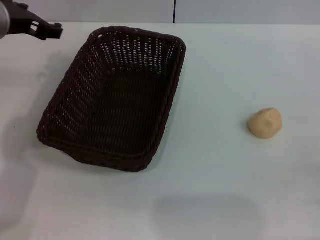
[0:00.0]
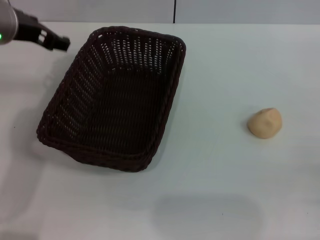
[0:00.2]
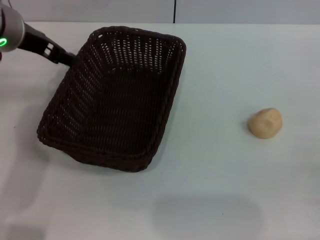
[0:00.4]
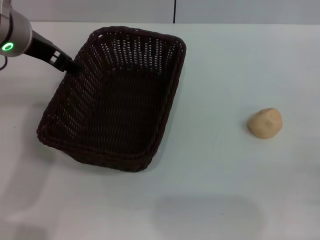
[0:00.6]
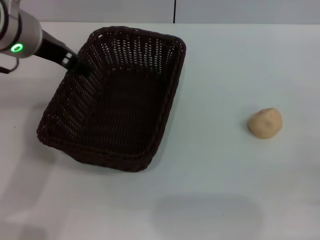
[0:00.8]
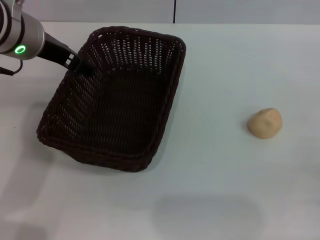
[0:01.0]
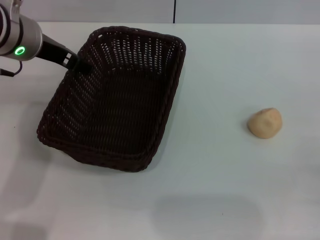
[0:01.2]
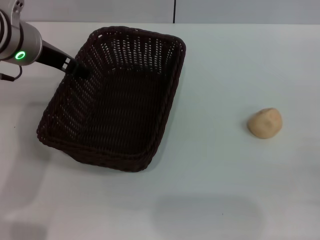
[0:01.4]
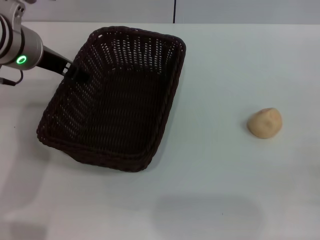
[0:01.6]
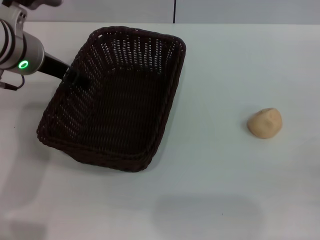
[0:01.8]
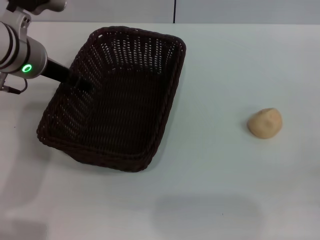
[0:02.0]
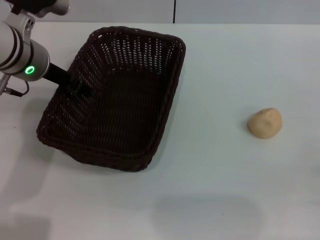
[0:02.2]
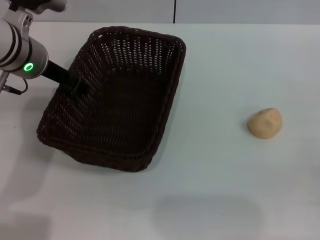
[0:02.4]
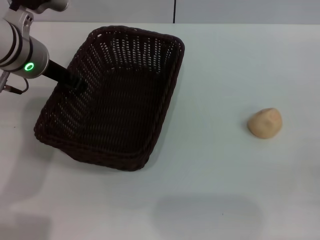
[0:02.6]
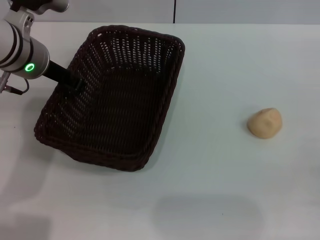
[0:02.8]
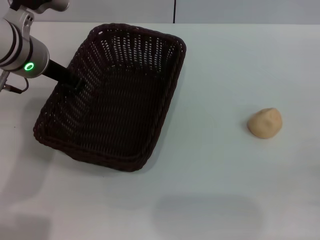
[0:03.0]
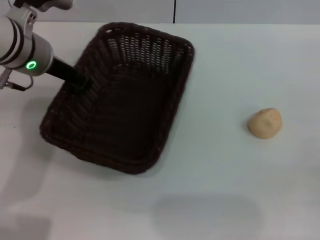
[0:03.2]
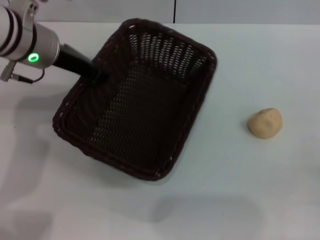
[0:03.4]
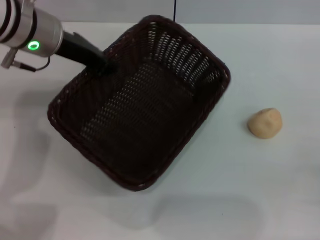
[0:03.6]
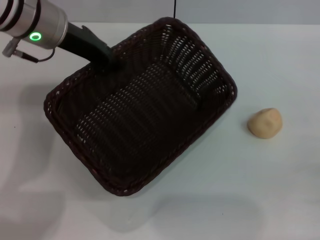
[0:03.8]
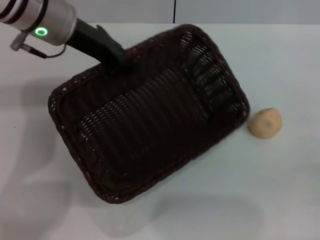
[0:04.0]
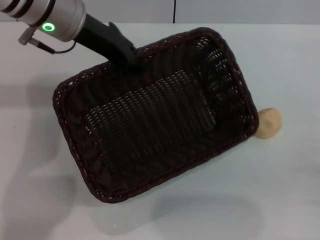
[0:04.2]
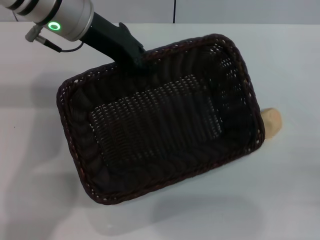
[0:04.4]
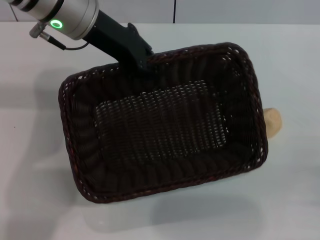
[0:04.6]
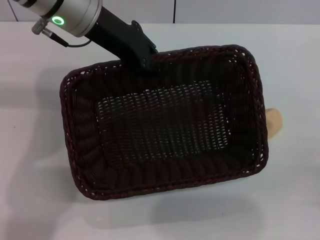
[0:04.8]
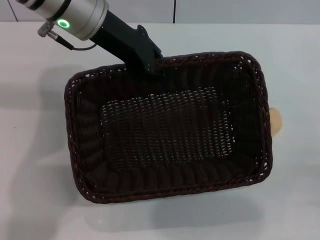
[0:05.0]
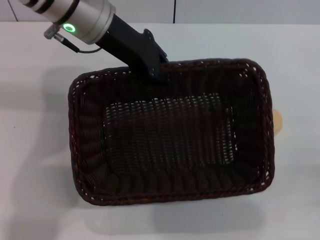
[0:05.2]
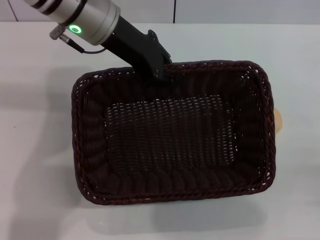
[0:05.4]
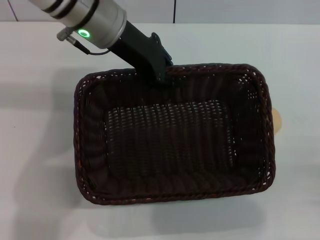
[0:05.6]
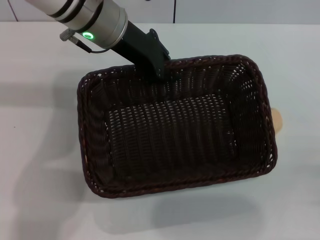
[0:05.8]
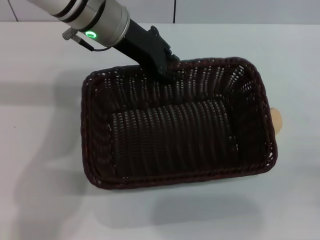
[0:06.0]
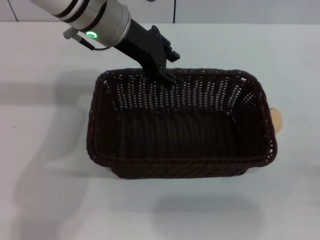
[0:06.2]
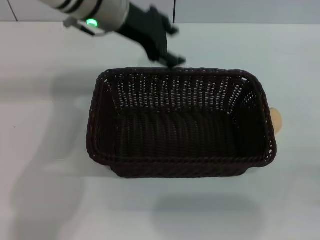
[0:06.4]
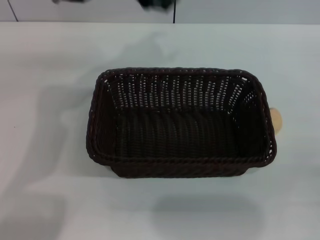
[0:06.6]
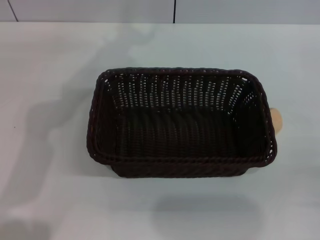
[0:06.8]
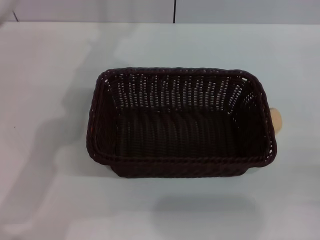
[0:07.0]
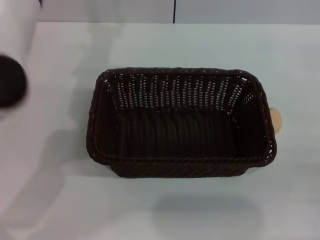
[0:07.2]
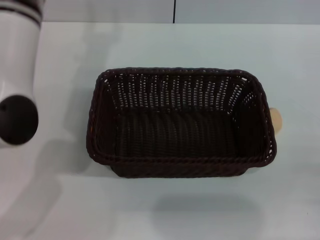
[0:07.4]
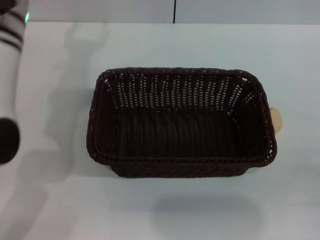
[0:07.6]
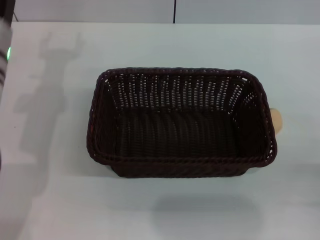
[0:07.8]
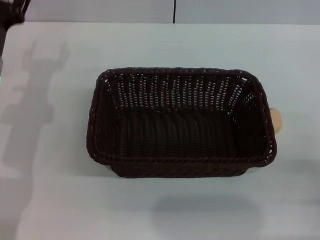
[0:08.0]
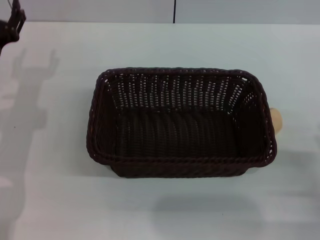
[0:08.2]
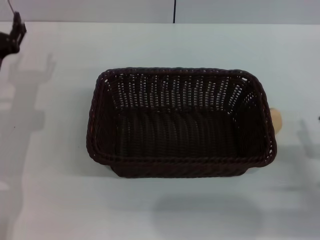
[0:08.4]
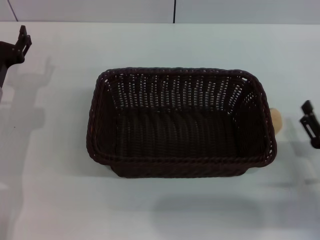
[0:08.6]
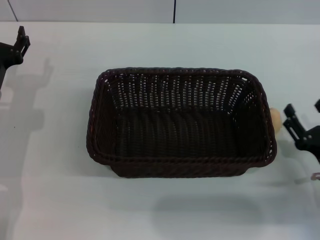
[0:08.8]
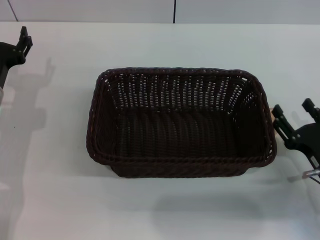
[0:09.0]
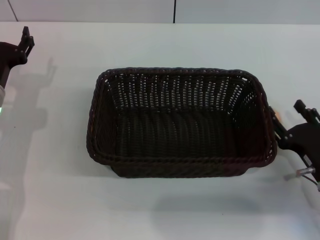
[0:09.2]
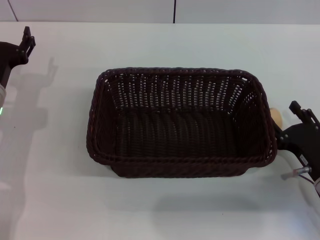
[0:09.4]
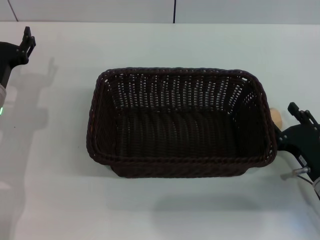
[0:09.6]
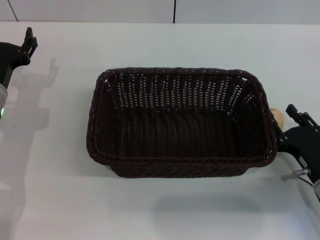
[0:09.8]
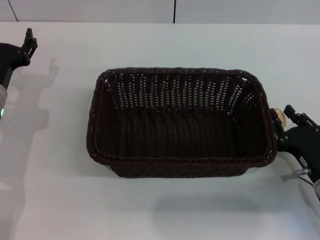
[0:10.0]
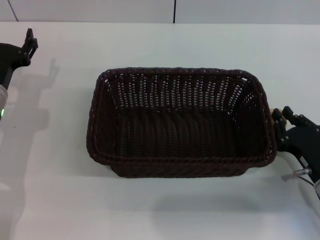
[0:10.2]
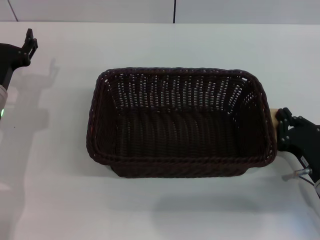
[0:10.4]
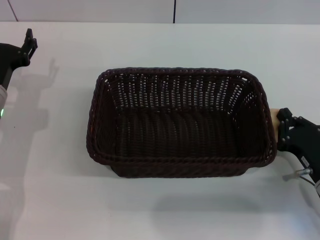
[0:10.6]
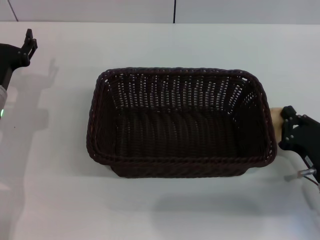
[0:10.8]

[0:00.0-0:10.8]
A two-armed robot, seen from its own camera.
Step, 0.0 to 6.4 s: Move the basket to the center of view with the left gripper.
0.0 to 1.6 s: The grippers move only a little.
1.6 to 3.0 s: The left gripper closes.
3.0 to 4.6 s: The left gripper shifts about 10 cm upward and to the right.
6.2 to 7.8 s: The left gripper travels to the left and downward by approximately 15 cm, and opens up.
7.8 to 9.2 s: The left gripper is displaced downward by approximately 5 cm. Meanwhile the right gripper moves forward and to the left, about 10 cm.
9.2 to 10.8 s: The right gripper closes up.

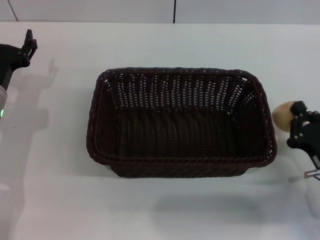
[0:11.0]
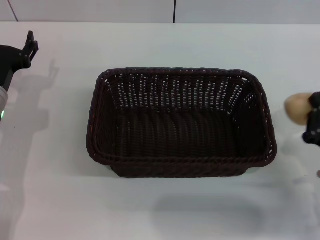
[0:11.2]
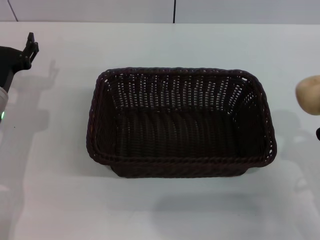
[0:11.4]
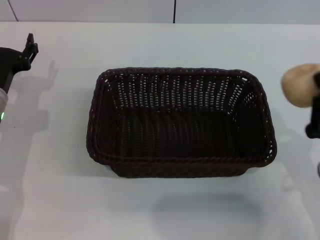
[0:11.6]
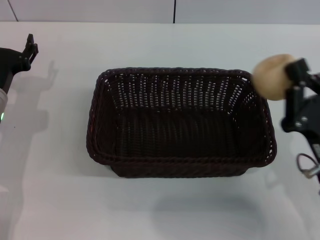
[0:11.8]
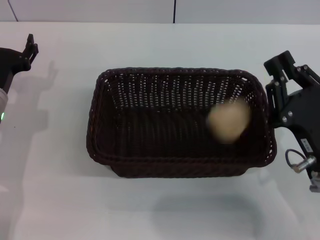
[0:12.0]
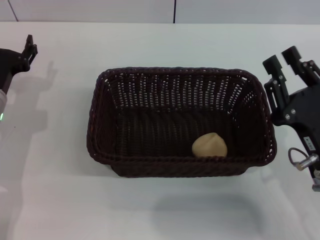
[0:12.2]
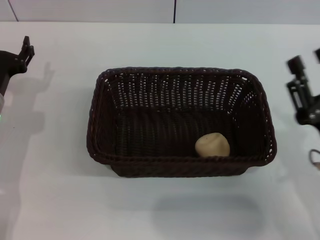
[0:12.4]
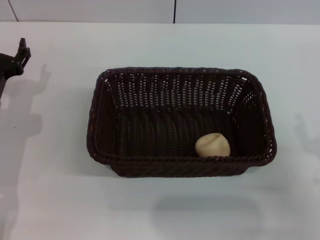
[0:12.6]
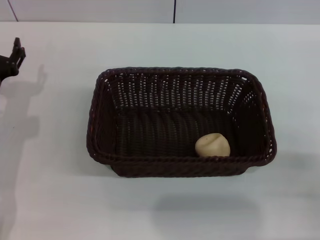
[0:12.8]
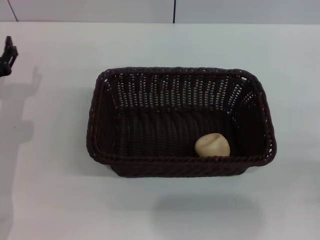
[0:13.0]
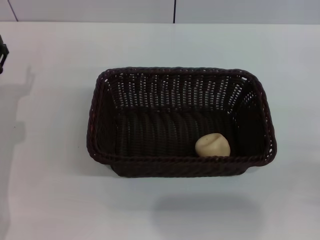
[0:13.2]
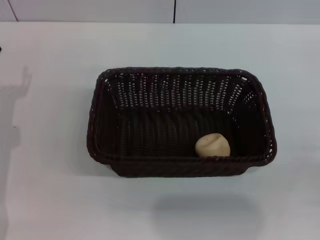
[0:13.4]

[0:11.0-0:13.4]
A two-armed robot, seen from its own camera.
Step, 11.6 to 12.2 s: Place the egg yolk pastry into the basket with the right gripper.
11.0 to 12.2 s: The right gripper shifts roughly 5 cm upward.
12.2 to 13.4 s: The right gripper heads to the right and backward, covering roughly 15 cm, and opens its fingers.

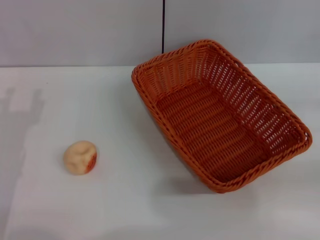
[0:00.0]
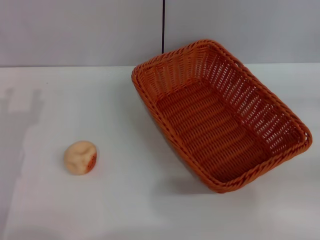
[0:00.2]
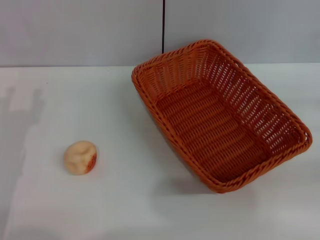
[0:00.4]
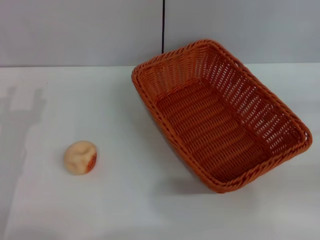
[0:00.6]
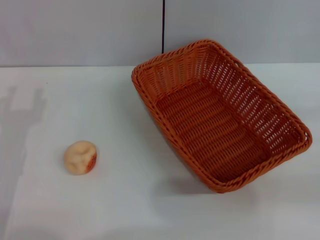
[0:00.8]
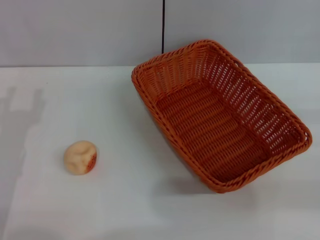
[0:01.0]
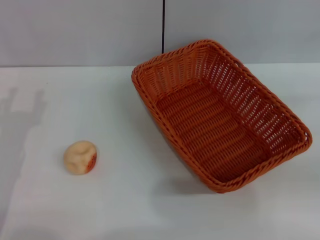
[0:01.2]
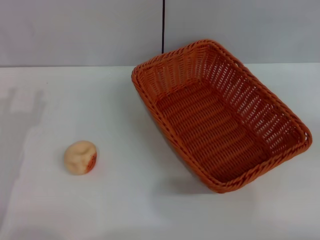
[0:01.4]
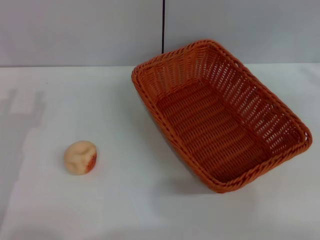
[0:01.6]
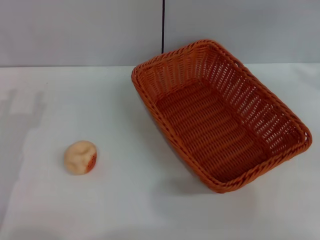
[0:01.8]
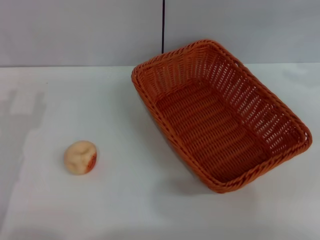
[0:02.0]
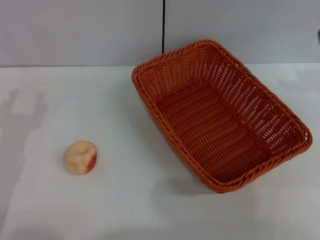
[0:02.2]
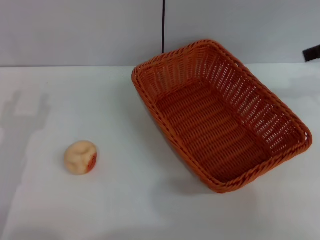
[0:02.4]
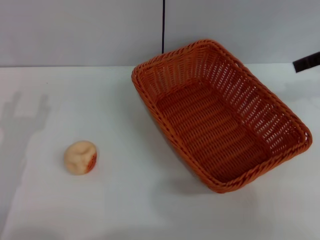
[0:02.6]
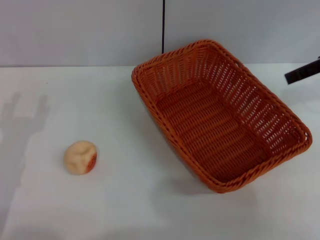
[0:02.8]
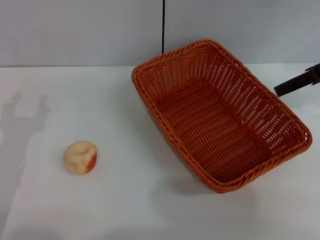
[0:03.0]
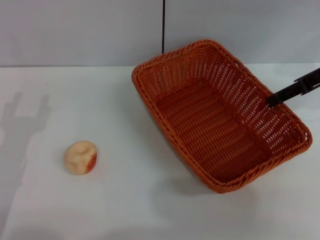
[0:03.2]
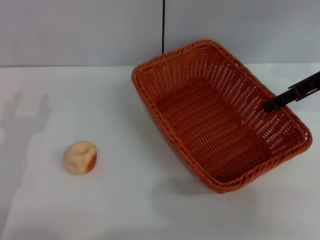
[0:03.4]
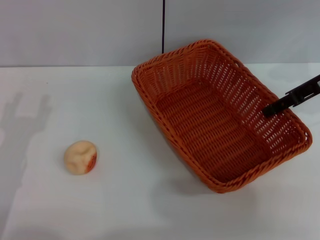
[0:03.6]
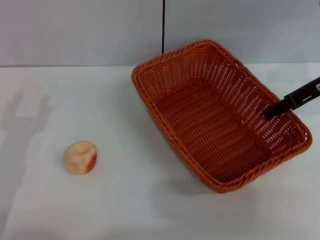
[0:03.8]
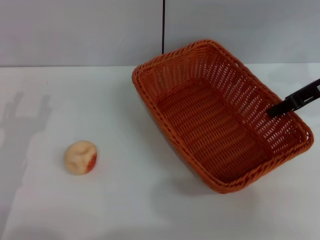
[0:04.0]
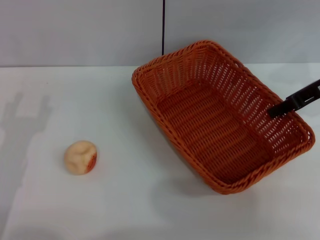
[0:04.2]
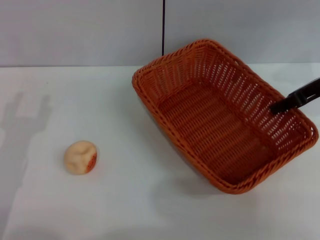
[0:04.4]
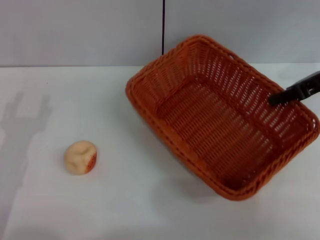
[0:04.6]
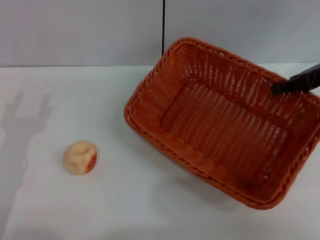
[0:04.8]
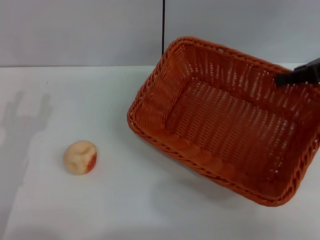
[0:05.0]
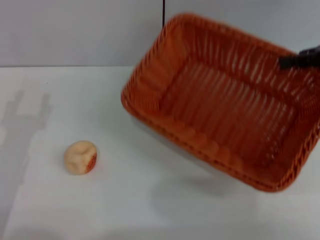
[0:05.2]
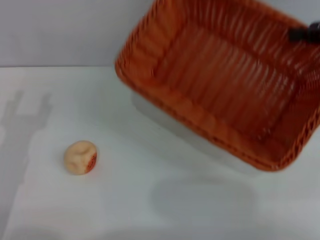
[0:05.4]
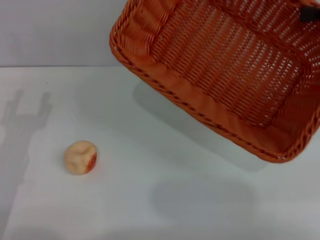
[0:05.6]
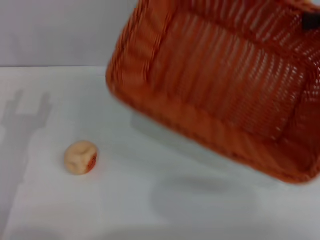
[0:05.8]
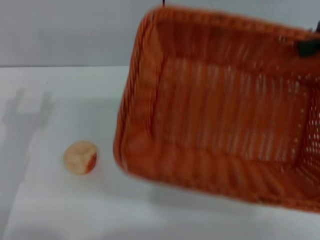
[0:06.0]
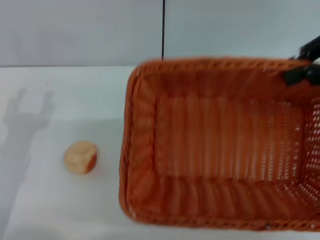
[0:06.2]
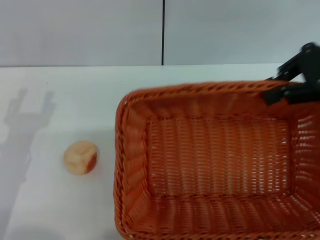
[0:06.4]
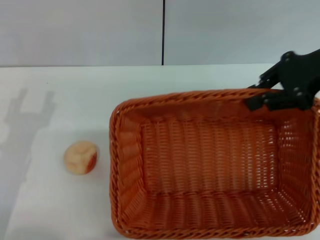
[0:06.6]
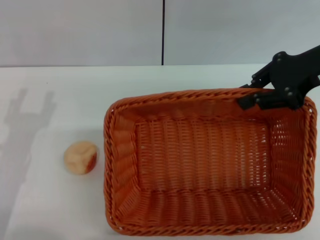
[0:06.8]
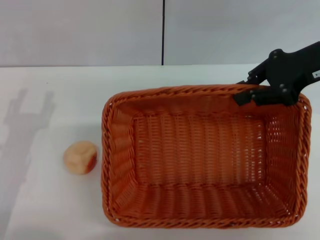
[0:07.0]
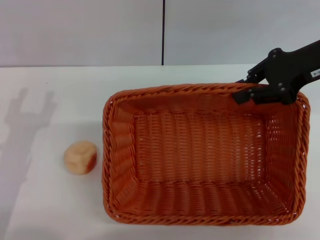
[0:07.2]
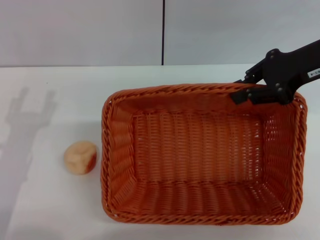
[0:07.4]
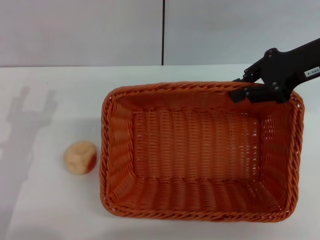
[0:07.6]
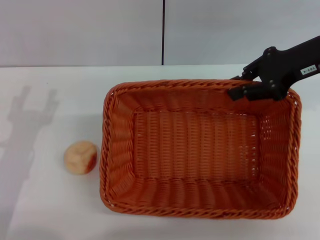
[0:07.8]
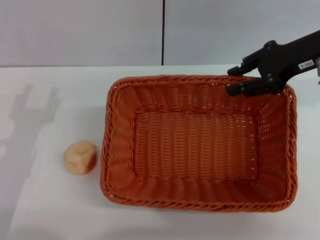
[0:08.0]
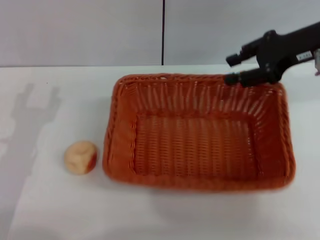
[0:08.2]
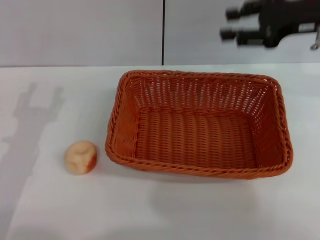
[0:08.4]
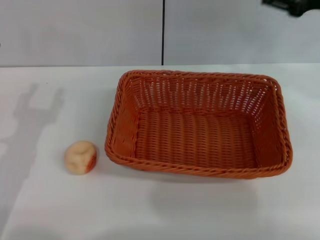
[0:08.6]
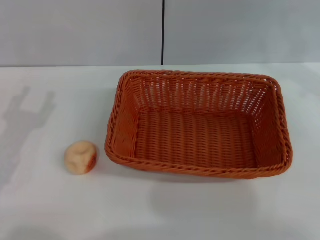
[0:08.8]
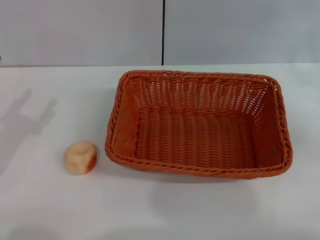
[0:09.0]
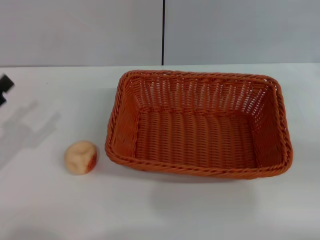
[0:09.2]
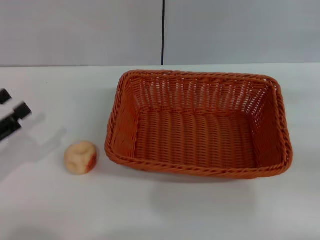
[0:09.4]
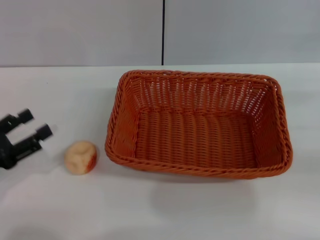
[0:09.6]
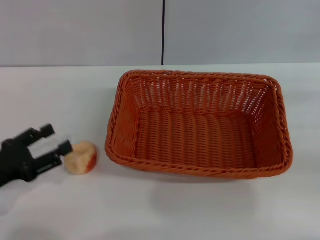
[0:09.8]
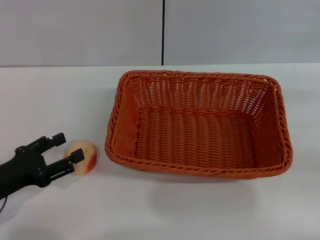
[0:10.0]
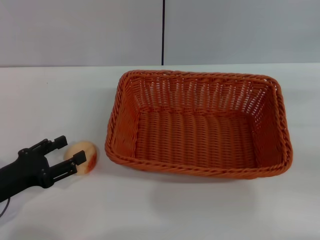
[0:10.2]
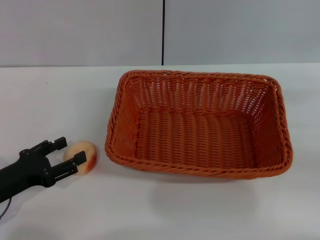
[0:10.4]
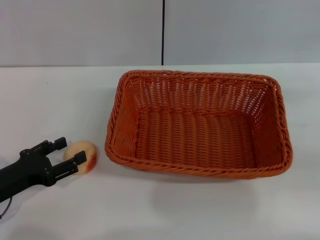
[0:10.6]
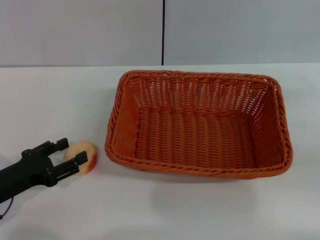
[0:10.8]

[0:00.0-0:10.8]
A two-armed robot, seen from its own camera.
Step, 0.0 to 8.2 s: Move the basket to the center of view with the right gripper.
1.6 to 3.0 s: The right gripper moves to the left and forward, roughly 15 cm.
3.0 to 4.6 s: The right gripper closes.
4.6 to 6.2 s: The right gripper heads upward, covering roughly 10 cm.
6.2 to 7.8 s: The right gripper goes some 10 cm downward and to the left.
7.8 to 9.2 s: The left gripper is displaced to the left by approximately 10 cm. Meanwhile the right gripper is displaced to the right, backward and downward by approximately 20 cm, and opens up.
9.2 to 10.8 s: The left gripper shifts some 5 cm downward.
